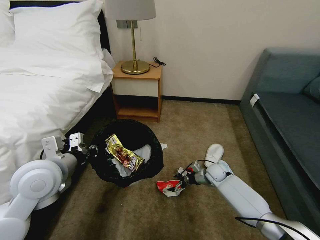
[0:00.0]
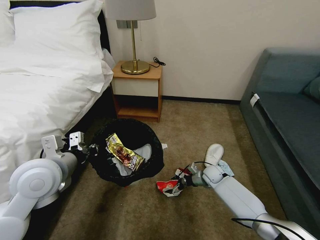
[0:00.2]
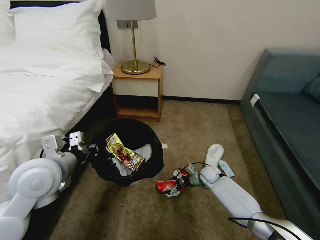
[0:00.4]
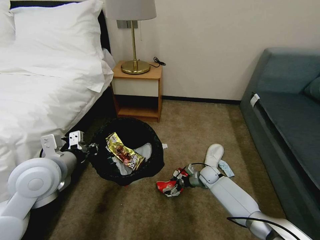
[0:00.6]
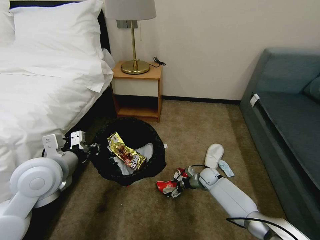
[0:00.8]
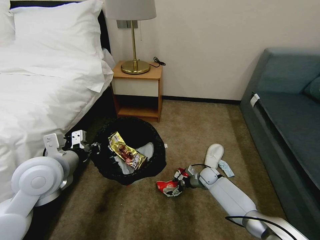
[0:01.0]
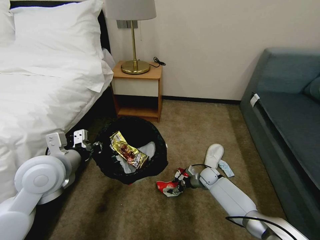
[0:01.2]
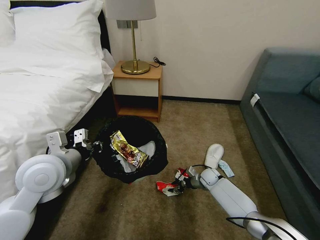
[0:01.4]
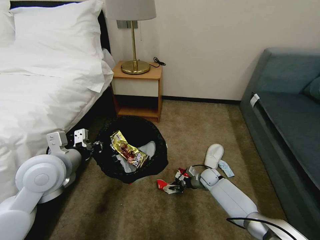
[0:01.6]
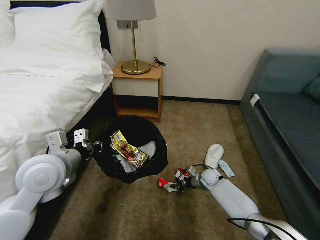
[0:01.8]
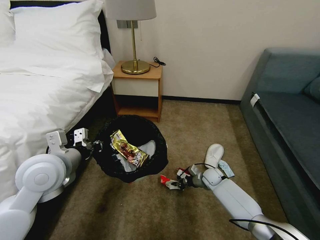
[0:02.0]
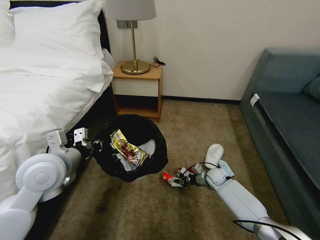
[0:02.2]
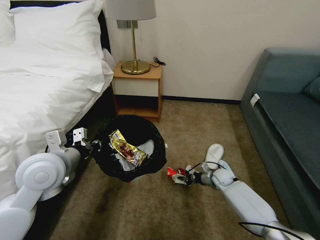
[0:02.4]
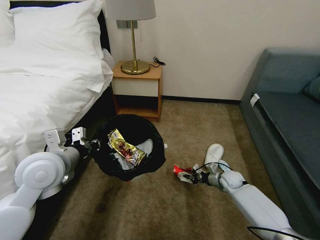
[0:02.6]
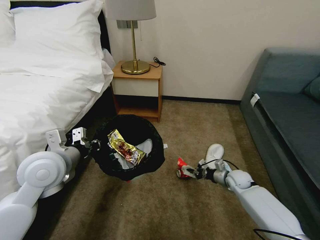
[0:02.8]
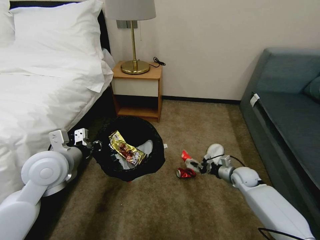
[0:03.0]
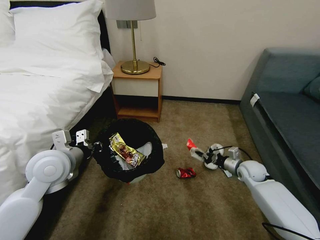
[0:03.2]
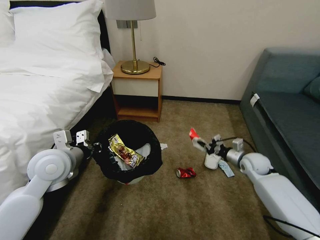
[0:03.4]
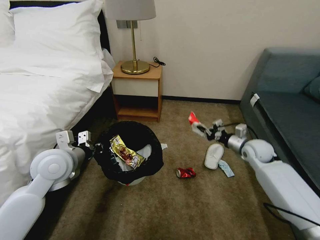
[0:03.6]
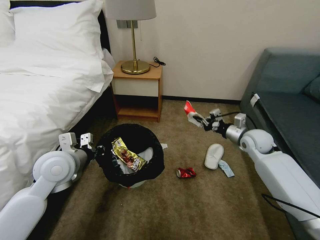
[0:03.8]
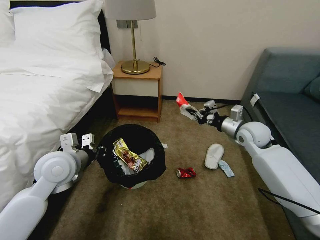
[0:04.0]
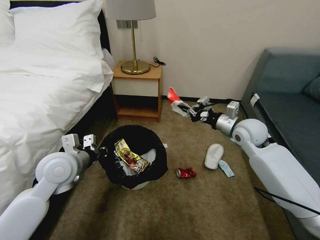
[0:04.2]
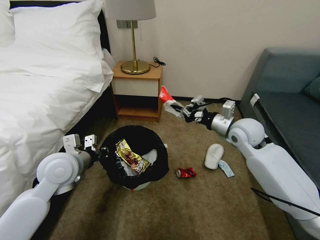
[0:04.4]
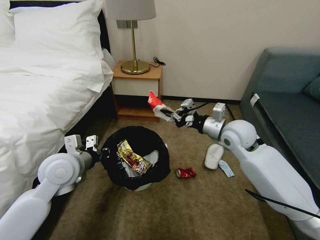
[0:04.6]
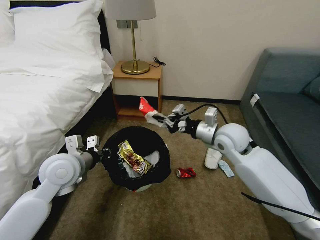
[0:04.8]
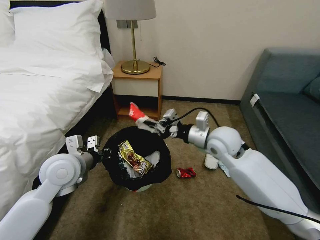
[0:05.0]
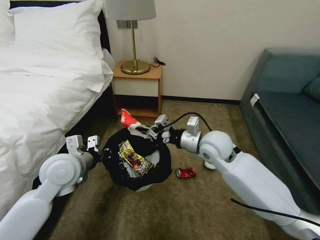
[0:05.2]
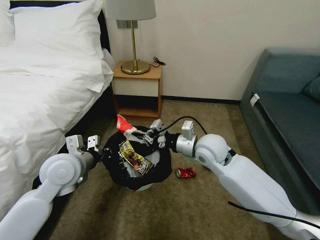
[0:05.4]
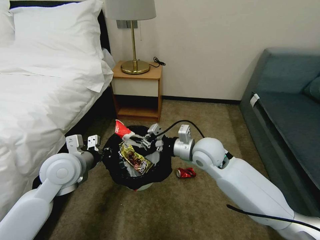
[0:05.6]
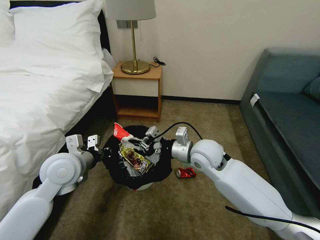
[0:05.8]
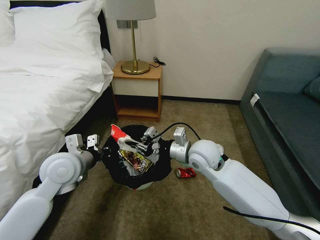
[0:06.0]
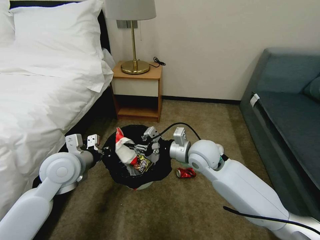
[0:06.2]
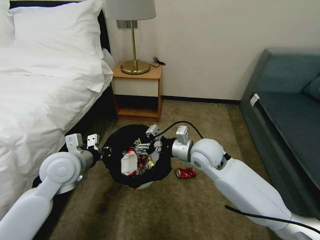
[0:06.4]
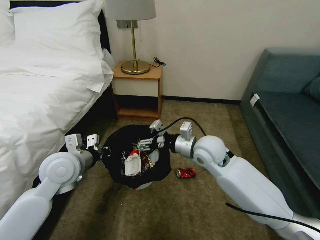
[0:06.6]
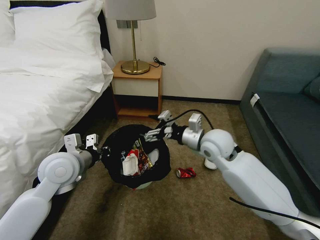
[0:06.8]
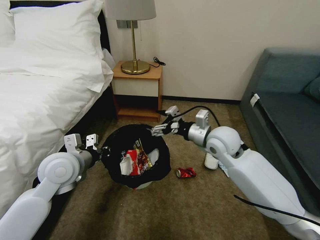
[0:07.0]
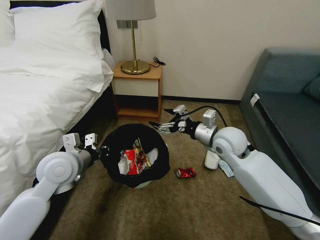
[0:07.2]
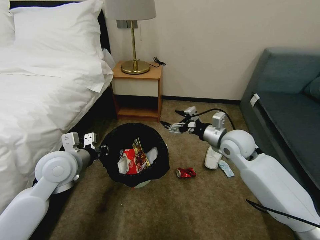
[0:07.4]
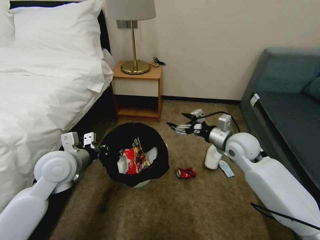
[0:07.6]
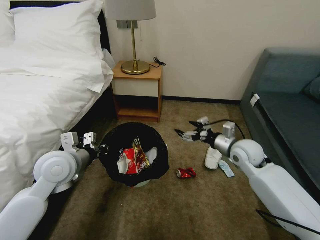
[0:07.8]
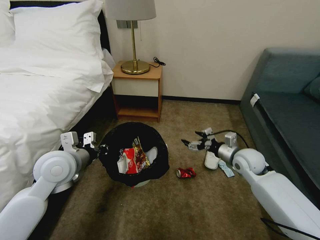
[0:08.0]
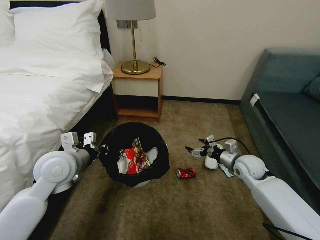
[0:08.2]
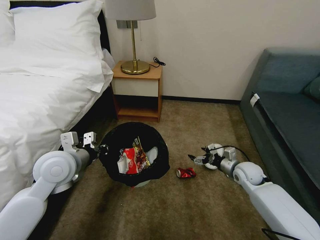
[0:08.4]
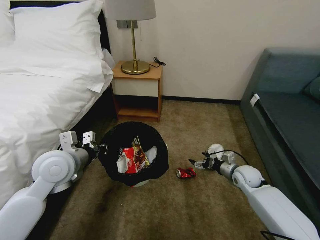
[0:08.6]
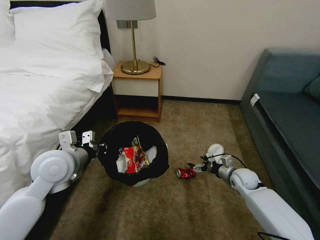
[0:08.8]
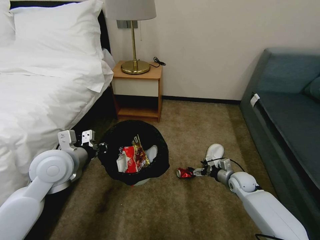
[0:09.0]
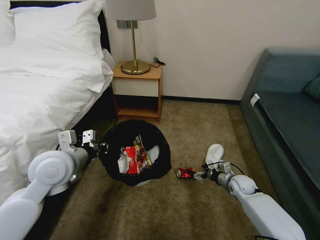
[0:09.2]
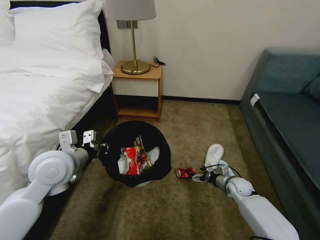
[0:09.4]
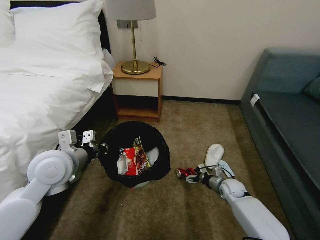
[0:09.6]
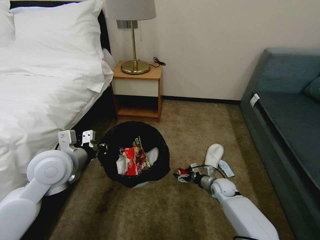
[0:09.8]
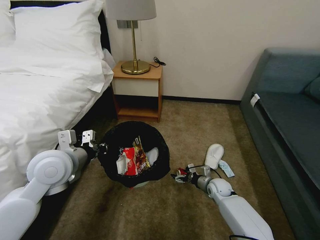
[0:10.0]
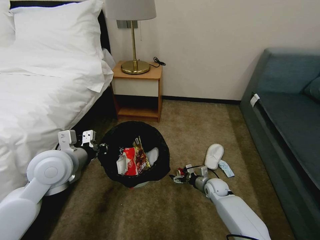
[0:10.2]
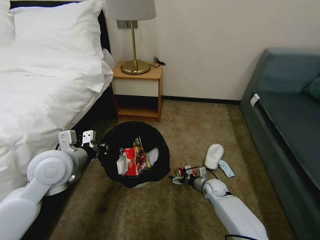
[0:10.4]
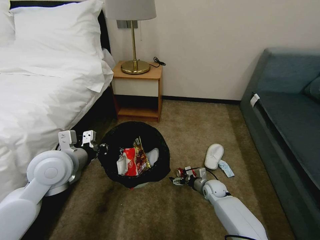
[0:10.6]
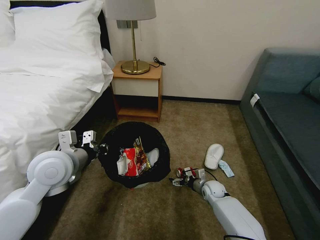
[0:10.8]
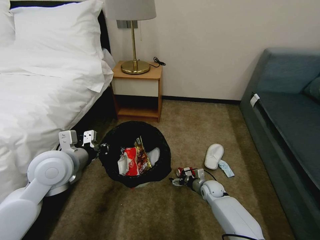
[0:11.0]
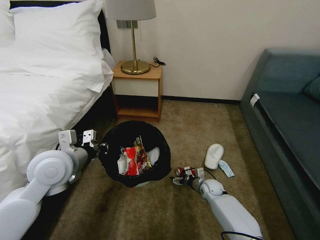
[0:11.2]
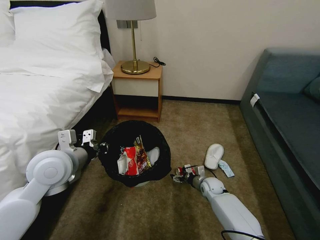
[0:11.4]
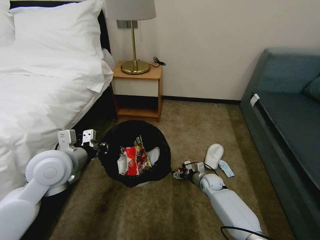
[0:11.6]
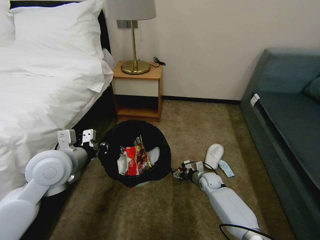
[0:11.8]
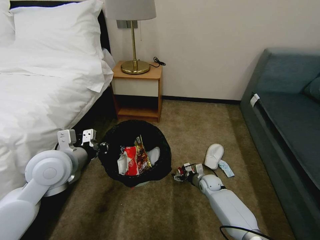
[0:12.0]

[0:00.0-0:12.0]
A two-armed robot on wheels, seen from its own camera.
Task of the whole recording: Pick up the trash bin, then pick up the garbage on the floor and place it into the trash bin.
0:00.0 to 0:01.6: The right gripper closes.
0:01.6 to 0:03.0: The right gripper goes about 15 cm to the right and upward.
0:03.0 to 0:04.4: The right gripper heads upward and to the left, covering approximately 25 cm.
0:04.4 to 0:06.0: The right gripper moves to the left, some 15 cm.
0:06.0 to 0:07.6: The right gripper is displaced to the right by approximately 15 cm, and opens up.
0:07.6 to 0:09.0: The right gripper travels downward by about 25 cm.
0:09.0 to 0:10.4: The right gripper travels to the left and downward by some 10 cm.
0:10.4 to 0:12.0: The grippers stay close to where they were, moving slightly.

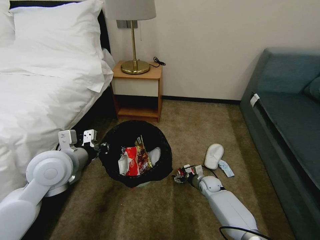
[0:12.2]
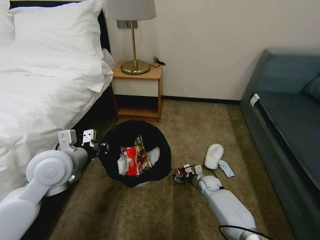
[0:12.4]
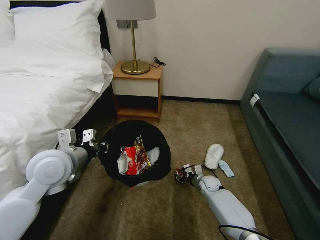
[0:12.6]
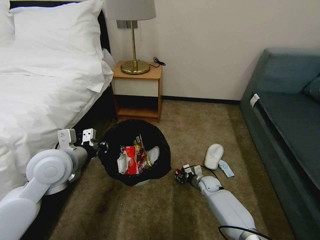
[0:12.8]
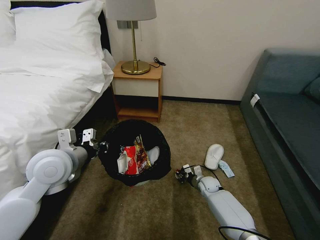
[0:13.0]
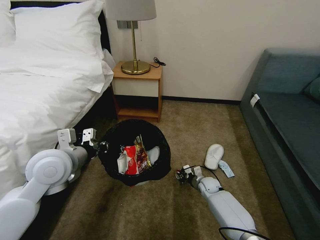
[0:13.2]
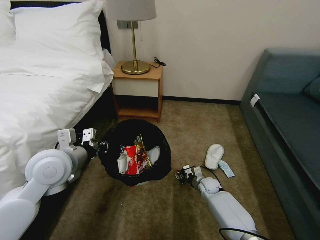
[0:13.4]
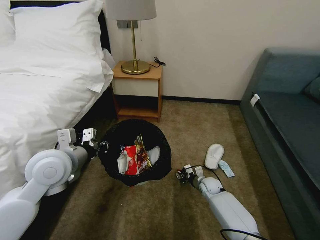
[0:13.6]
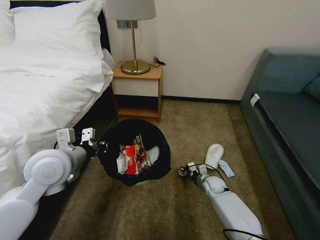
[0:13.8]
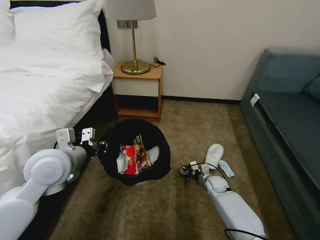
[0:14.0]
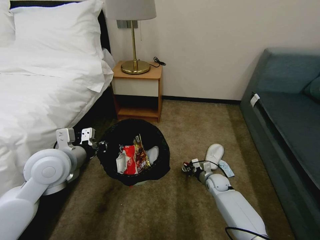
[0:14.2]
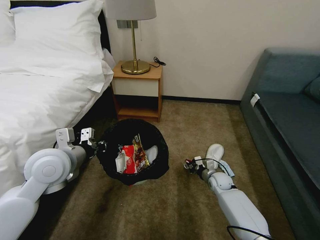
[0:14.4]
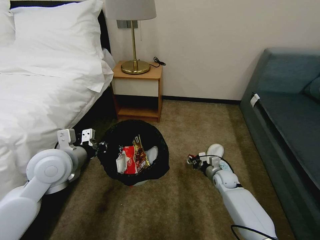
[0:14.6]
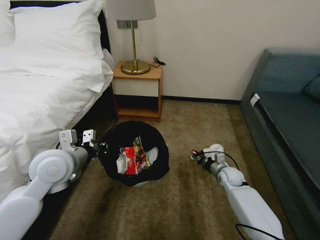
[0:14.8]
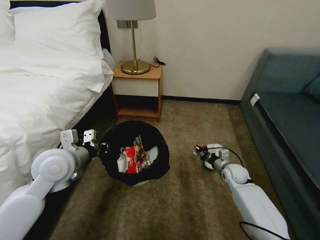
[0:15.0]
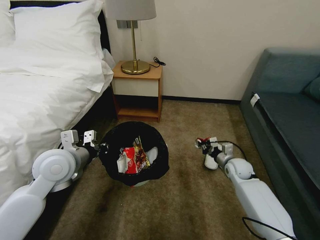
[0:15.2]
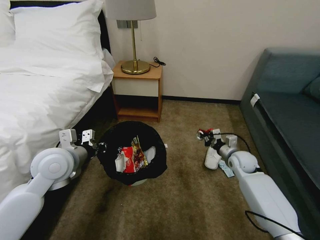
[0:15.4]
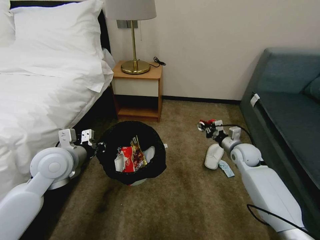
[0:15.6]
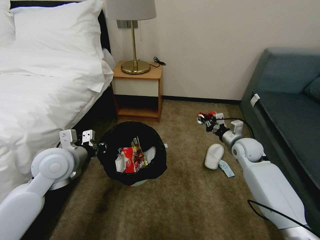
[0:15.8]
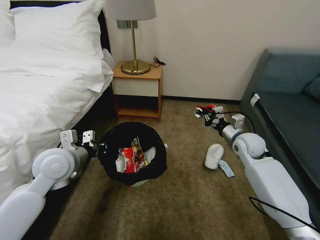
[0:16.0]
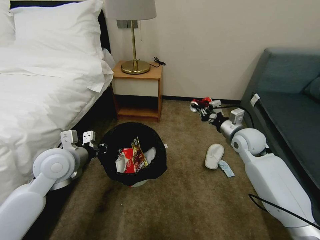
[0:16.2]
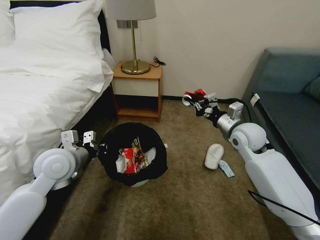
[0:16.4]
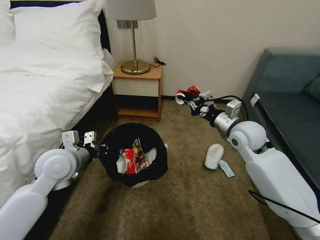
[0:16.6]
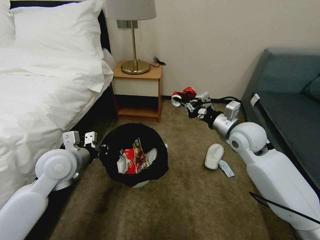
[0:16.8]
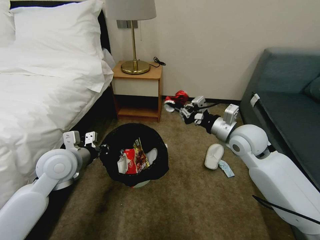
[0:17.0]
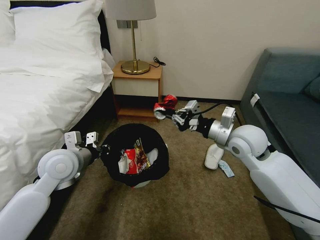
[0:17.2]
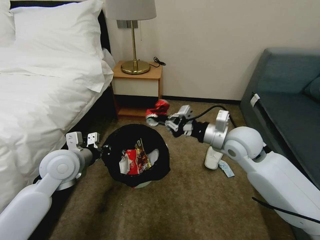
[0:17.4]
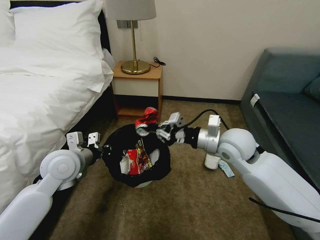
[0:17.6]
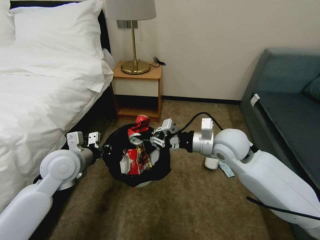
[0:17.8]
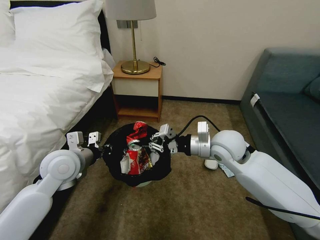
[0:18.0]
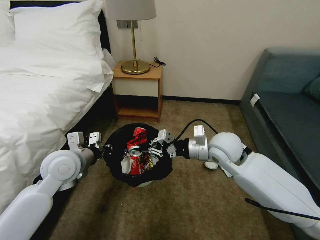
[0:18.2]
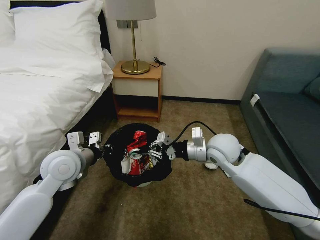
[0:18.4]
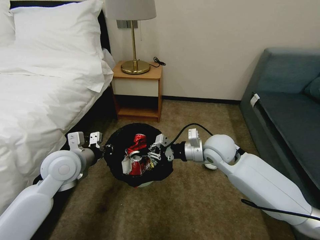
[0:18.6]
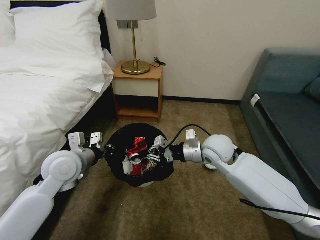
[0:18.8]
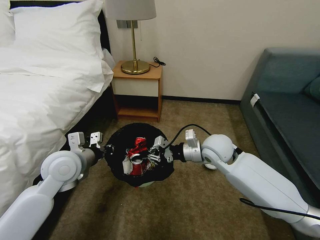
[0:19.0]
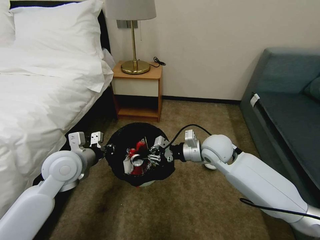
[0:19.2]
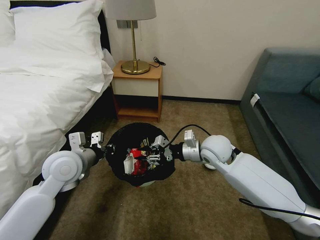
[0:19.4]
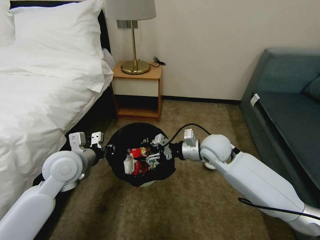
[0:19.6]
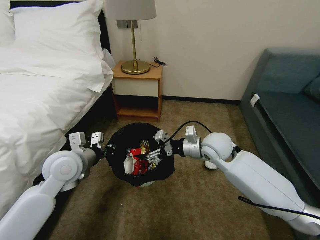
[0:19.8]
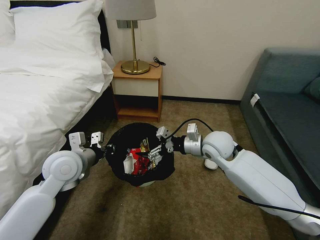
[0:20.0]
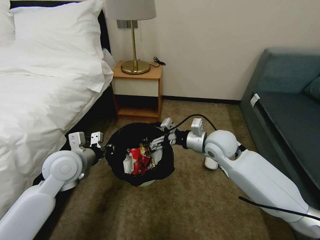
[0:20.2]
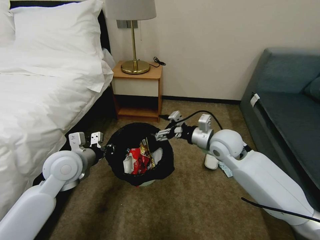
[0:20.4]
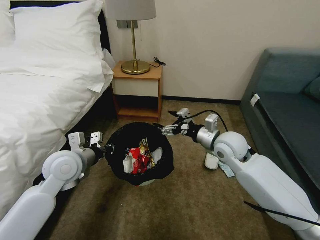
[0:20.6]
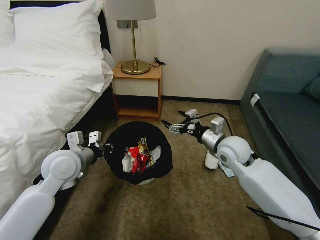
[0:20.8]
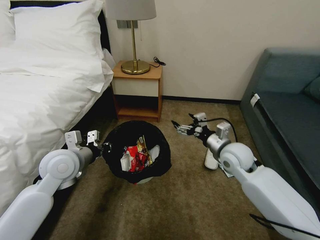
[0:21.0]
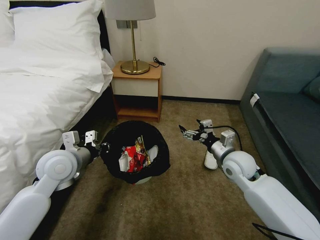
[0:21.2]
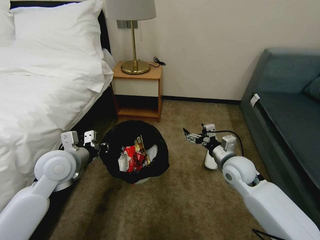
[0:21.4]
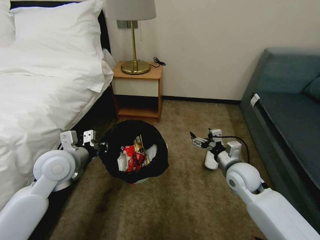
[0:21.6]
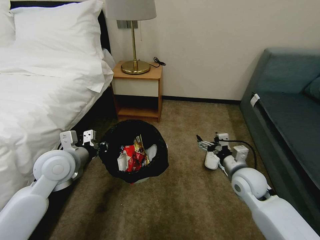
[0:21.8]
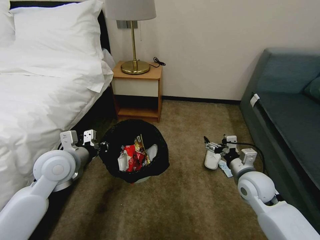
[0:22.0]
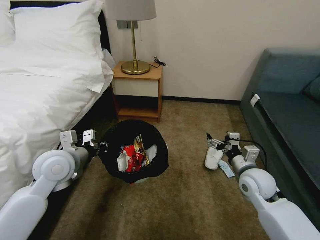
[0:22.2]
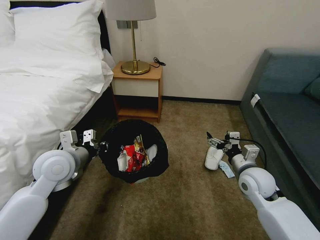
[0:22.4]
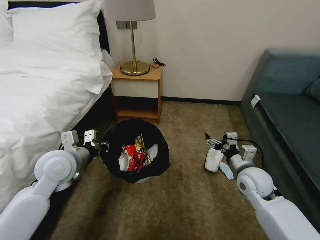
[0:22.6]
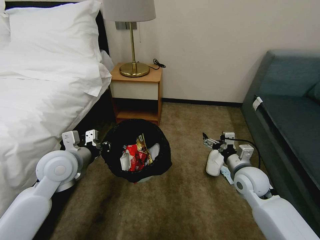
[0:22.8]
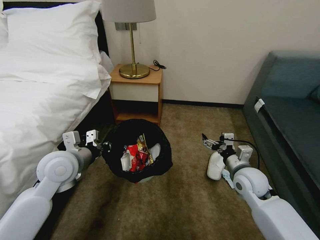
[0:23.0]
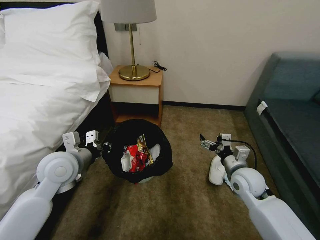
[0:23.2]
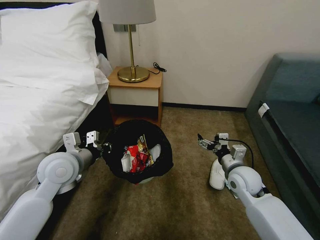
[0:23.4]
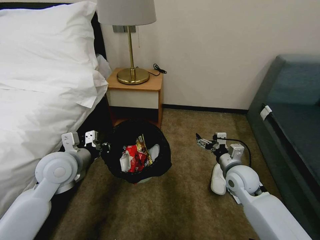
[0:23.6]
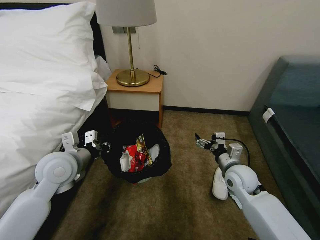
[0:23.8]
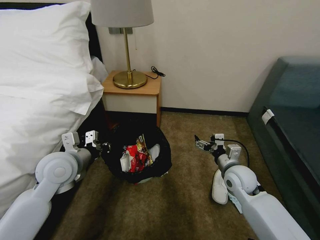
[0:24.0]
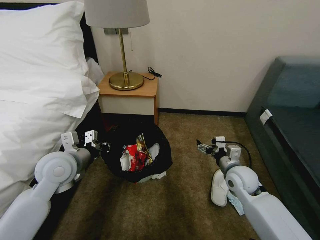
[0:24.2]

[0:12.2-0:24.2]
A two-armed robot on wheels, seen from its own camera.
Task of the whole recording: Pick up the trash bin, then pick up the garbage on the floor and place it into the trash bin.
0:12.2 to 0:13.8: The right gripper closes its fingers.
0:13.8 to 0:15.2: The right gripper moves upward and to the right, some 15 cm.
0:15.2 to 0:16.6: The right gripper is displaced upward by approximately 20 cm.
0:16.6 to 0:18.2: The right gripper travels to the left by approximately 10 cm.
0:18.2 to 0:19.8: The right gripper opens up.
0:19.8 to 0:21.2: The right gripper moves to the right, about 10 cm.
0:21.2 to 0:22.6: The right gripper ends up some 5 cm from where it was.
